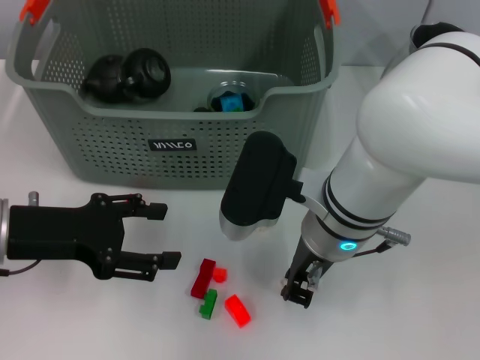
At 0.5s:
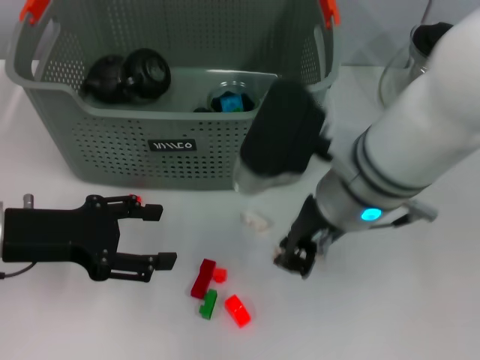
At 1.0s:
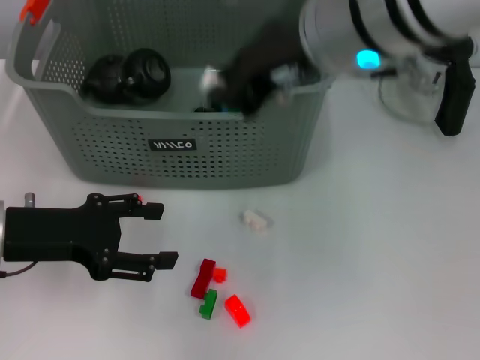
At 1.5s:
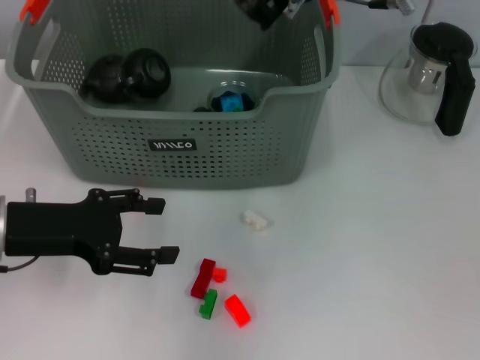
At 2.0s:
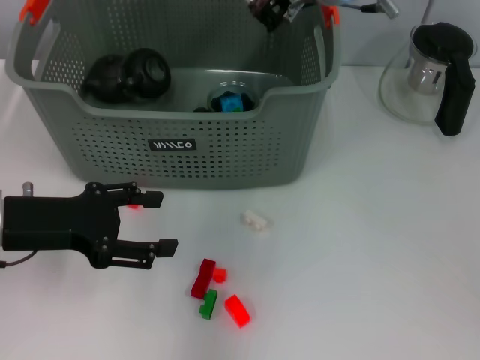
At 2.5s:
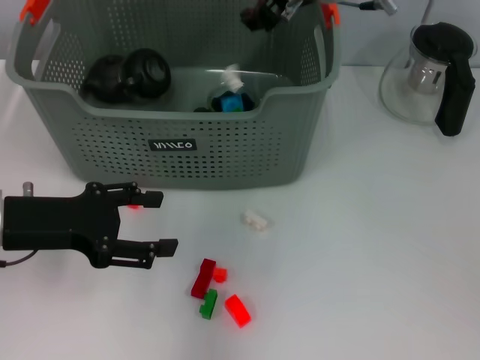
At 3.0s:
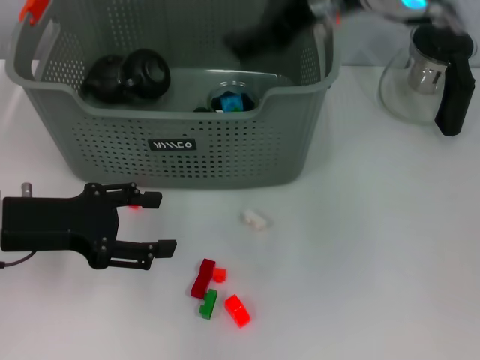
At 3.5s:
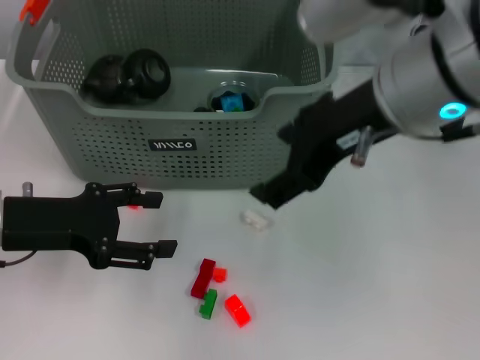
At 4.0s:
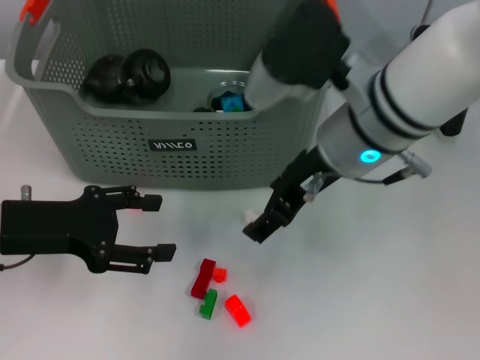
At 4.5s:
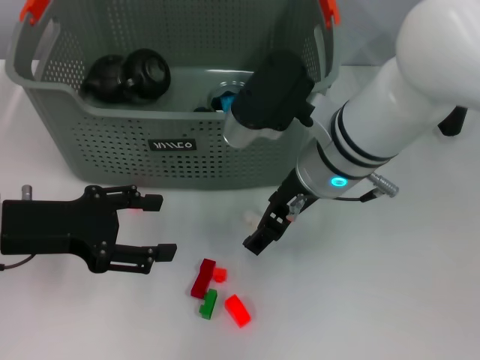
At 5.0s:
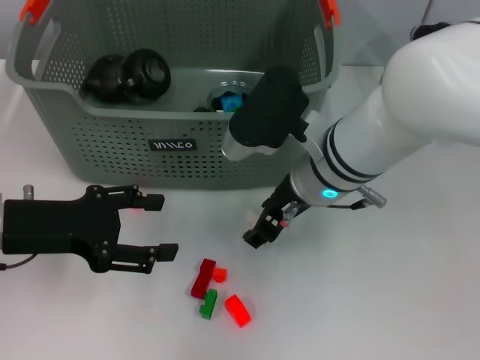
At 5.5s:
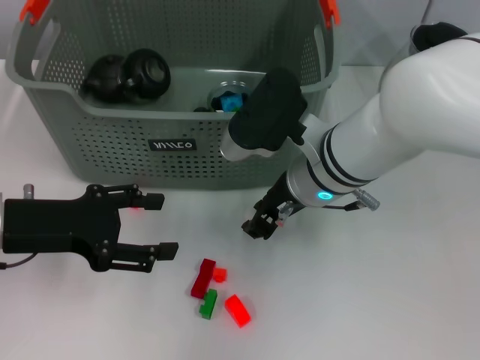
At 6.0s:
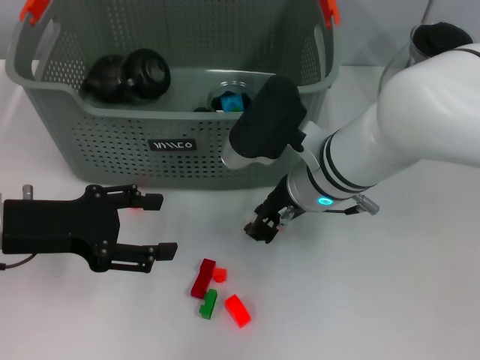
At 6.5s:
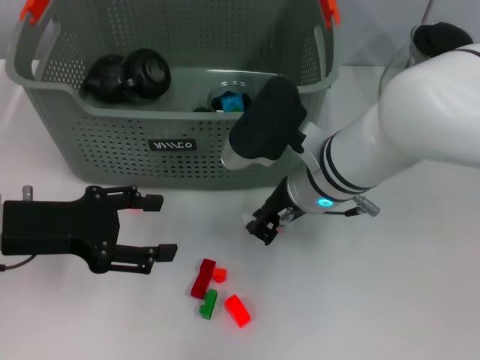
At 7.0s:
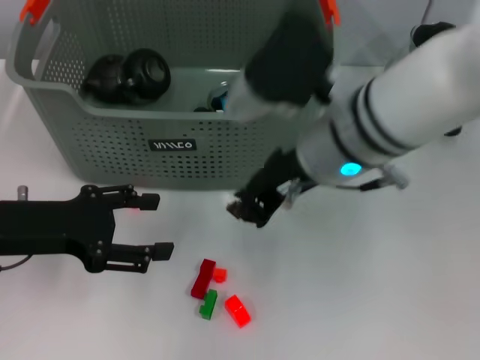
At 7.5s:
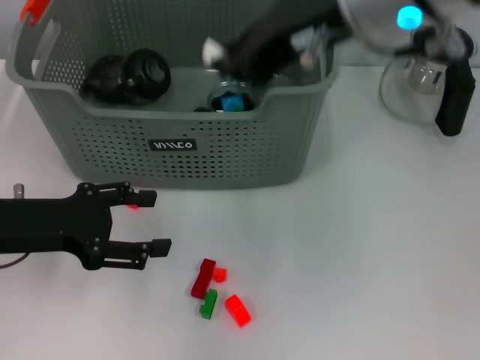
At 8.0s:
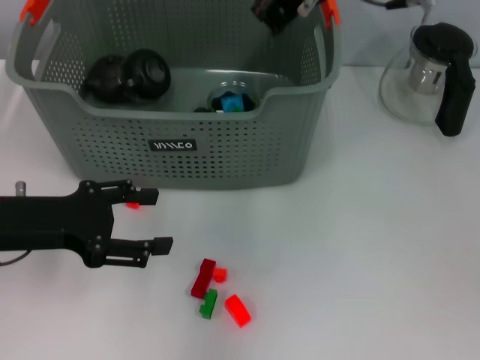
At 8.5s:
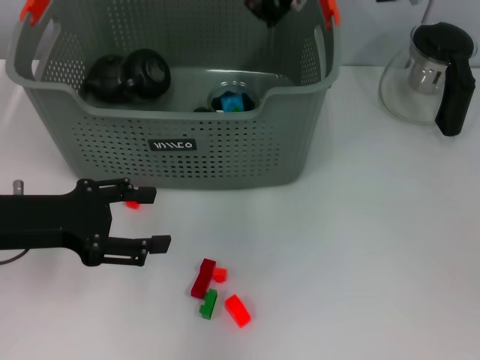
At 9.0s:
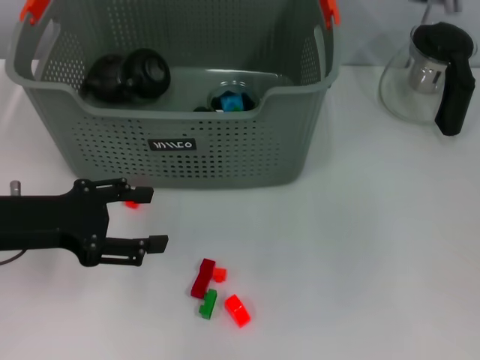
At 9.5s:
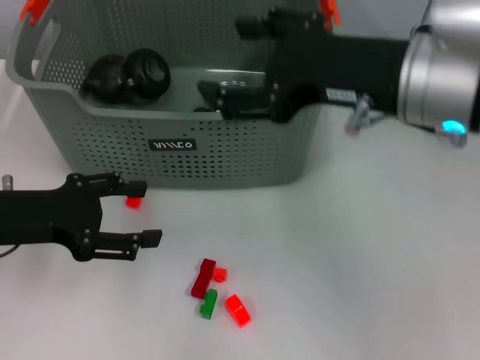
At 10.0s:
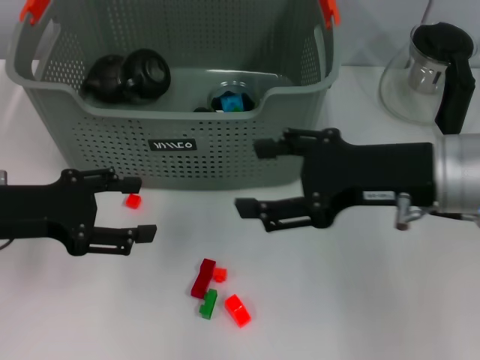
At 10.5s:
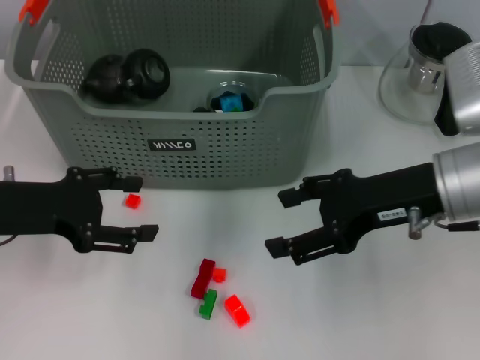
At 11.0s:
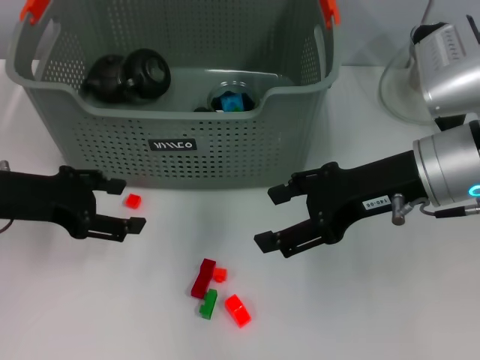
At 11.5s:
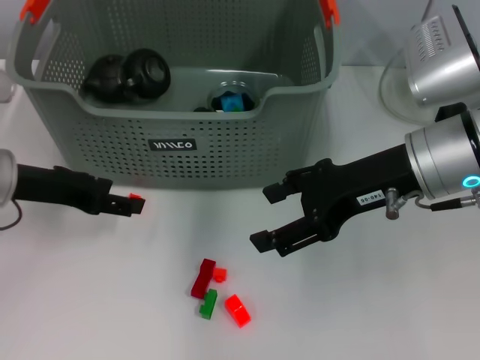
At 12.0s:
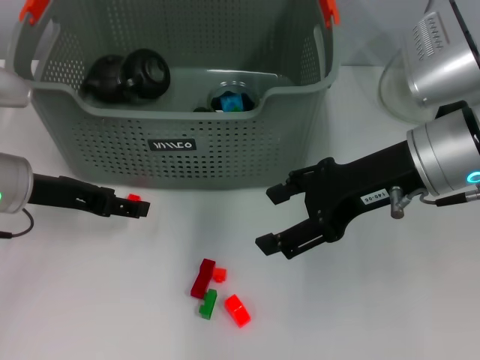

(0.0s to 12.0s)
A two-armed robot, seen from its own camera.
Task of the whole recording: pick up the teacup on the table and place it into the storage bin, pick up the block on the table and place it into the storage bin.
Step, 0.5s - 2.0s: Place the white block in the storage box with right gripper.
Step, 2.5s - 6.0s: Grasp the white block with right gripper.
Step, 6.5s - 7.5s: Place the white block in the storage box with right gripper.
0.0s - 2.0s: The right gripper moves forward and upward, roughly 20 cm.
2.0s - 4.0s: The right gripper is displaced backward and downward by approximately 10 cm, and opens.
4.0s - 6.0s: The right gripper goes some 10 cm downward, and closes up.
6.0s - 8.0s: The right gripper heads upward, covering about 20 cm.
8.0s - 10.0s: The right gripper is displaced backward, downward and to the right by approximately 20 cm, and opens.
10.0s - 12.0s: The left gripper is displaced forward by approximately 5 cm.

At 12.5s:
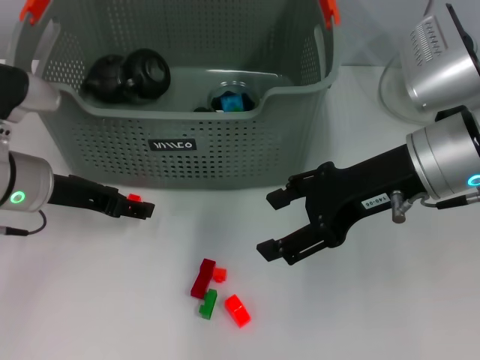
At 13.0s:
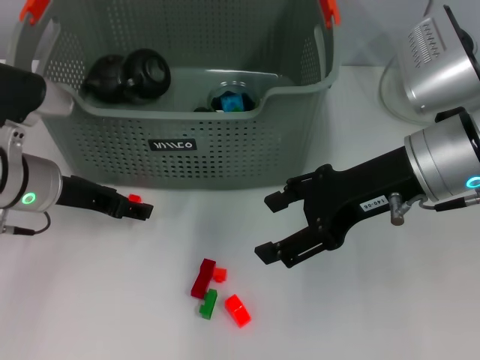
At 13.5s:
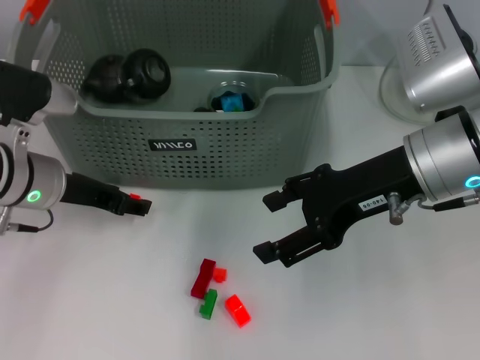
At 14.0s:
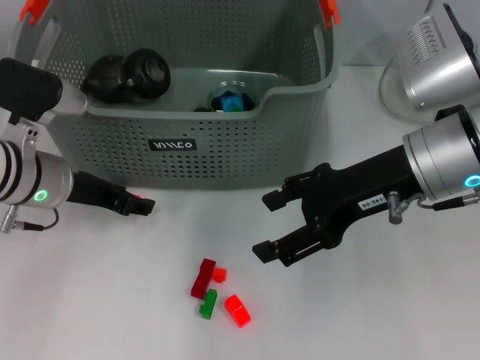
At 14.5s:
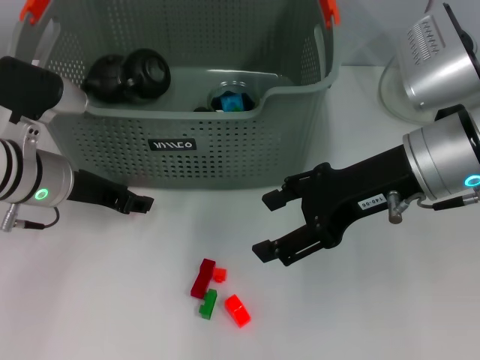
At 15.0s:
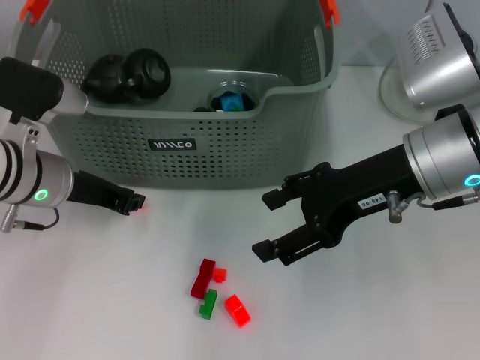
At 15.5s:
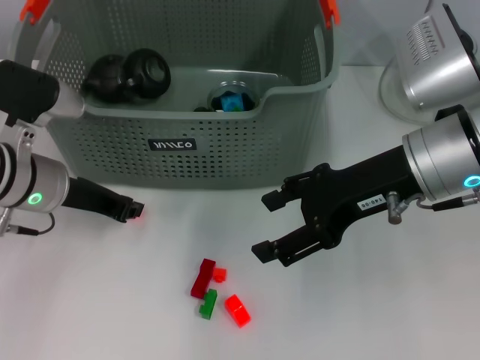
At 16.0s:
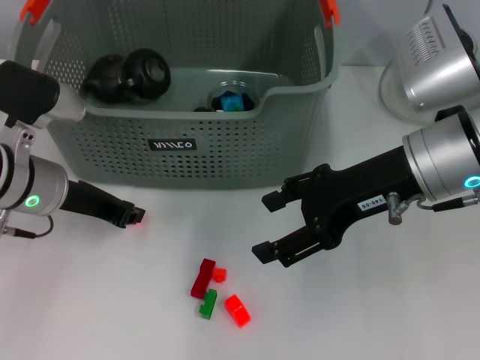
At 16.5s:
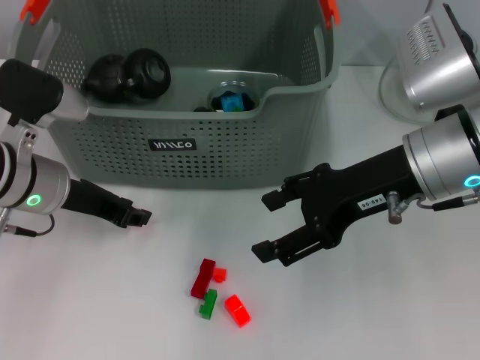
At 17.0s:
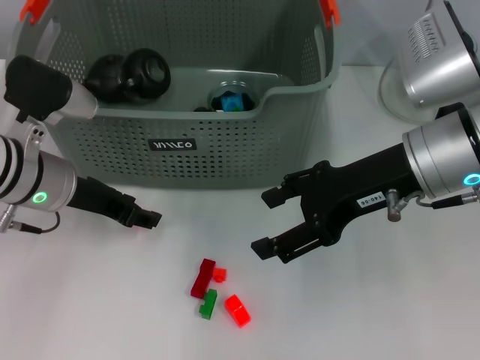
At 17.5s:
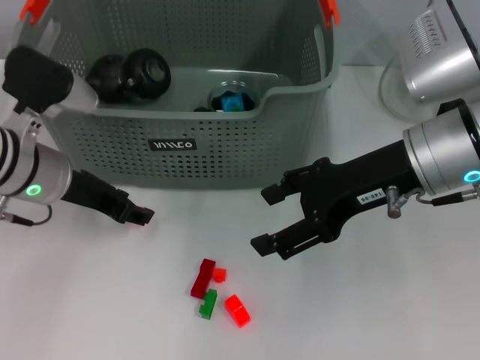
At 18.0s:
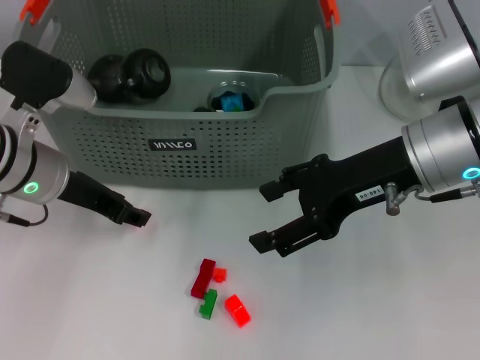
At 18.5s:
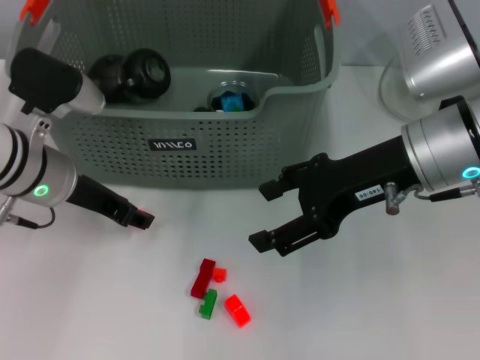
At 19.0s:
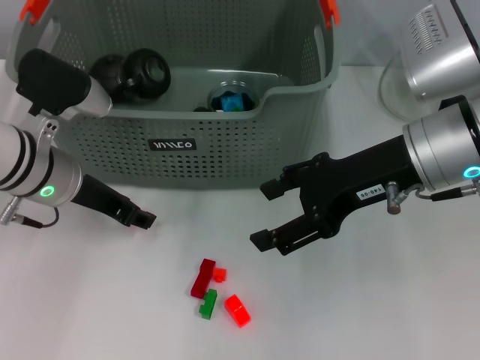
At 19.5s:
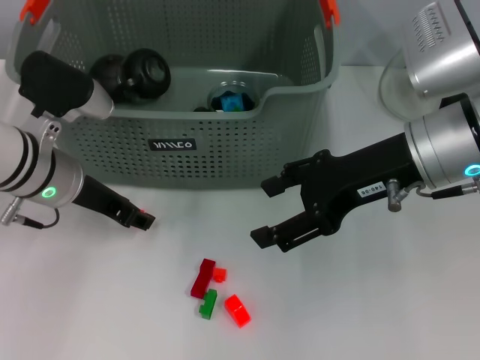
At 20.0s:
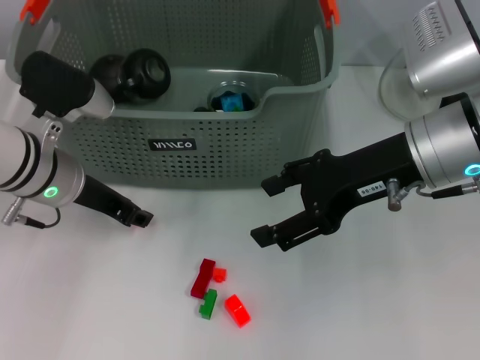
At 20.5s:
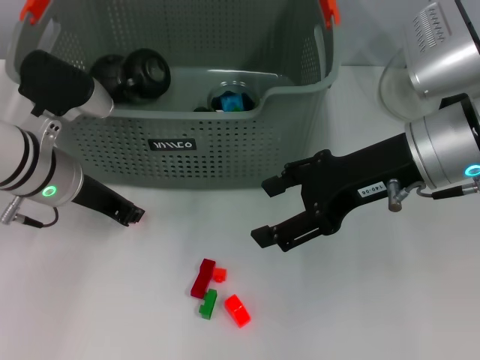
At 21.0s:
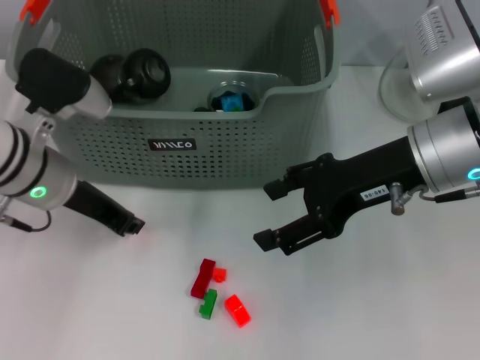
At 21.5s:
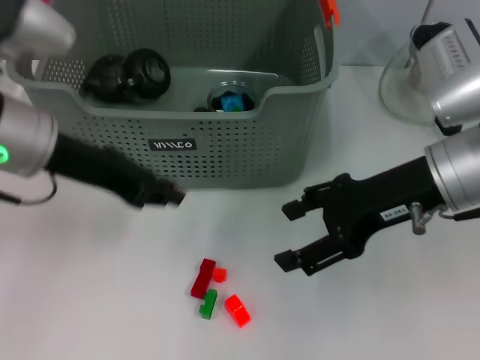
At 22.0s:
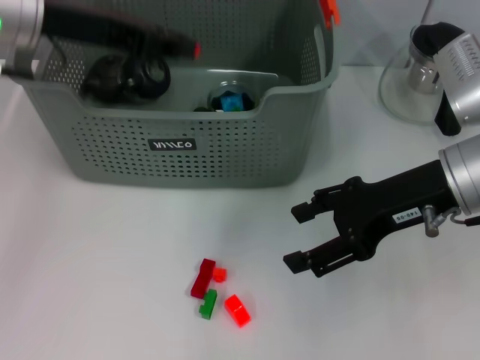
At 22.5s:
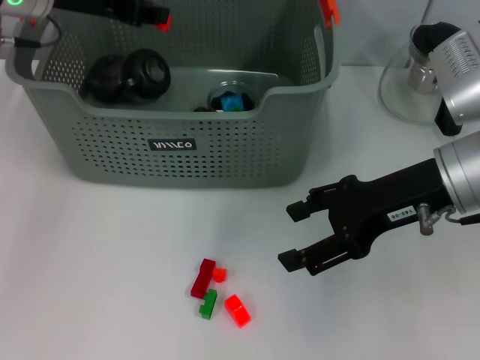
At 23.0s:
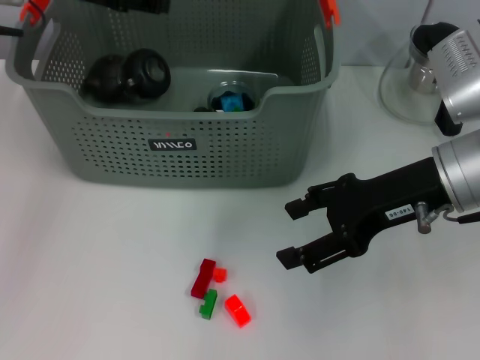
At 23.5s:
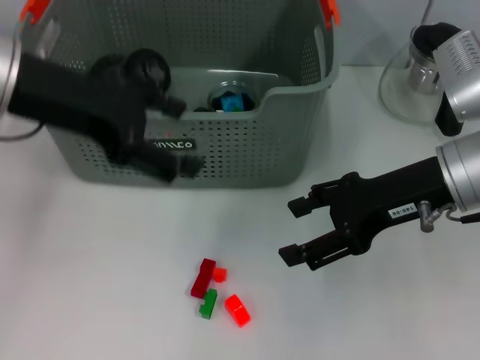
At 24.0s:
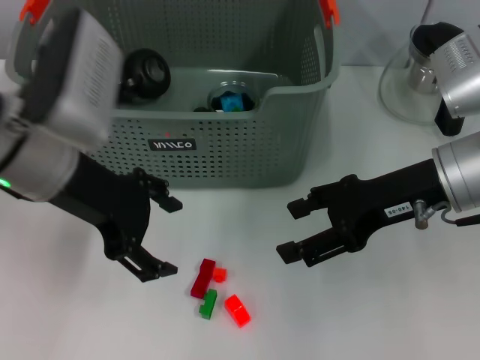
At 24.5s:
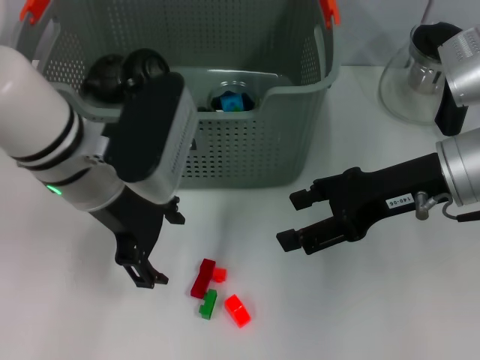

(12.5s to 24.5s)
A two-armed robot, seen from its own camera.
Task of the whole recording: pick up the teacup on the table and place it into the storage bin, pick up the block on the table and place it into the storage bin.
Step, 12.5s - 20.0s: Grasp the orange block with left gripper.
Step, 21.0s - 22.5s: Place the orange block in the storage box with left gripper.
12.5s - 14.5s: There are only small adjustments of the grippers.
14.5s - 16.5s: The left gripper closes.
16.5s - 18.5s: The left gripper opens.
18.5s - 20.5s: The left gripper closes.
20.5s - 22.5s: The left gripper shifts roughly 15 cm upward and forward.
22.5s - 24.5s: The left gripper is displaced backward, to the right and downward by about 15 cm, and opens up.

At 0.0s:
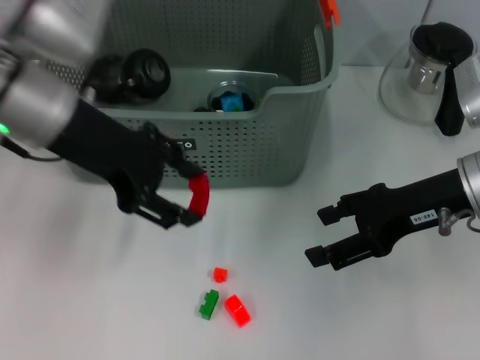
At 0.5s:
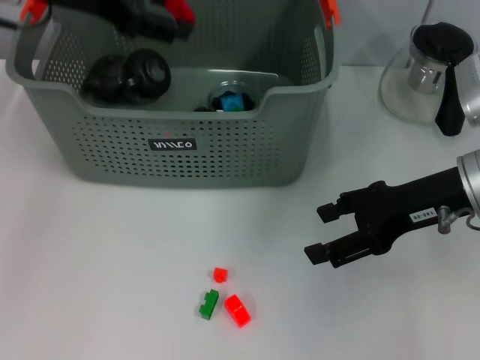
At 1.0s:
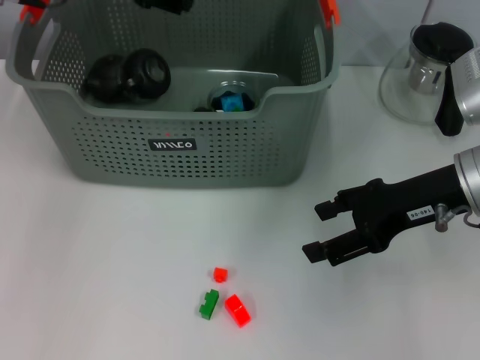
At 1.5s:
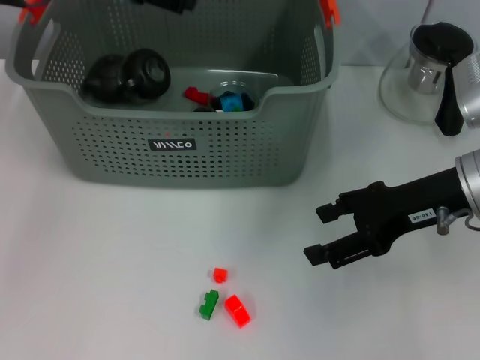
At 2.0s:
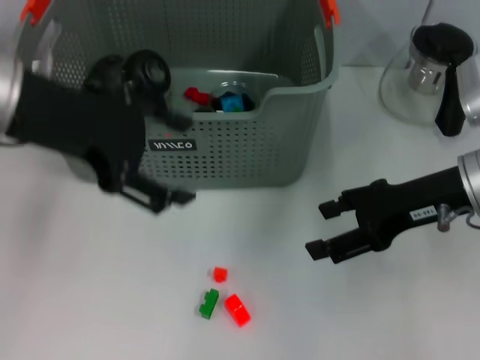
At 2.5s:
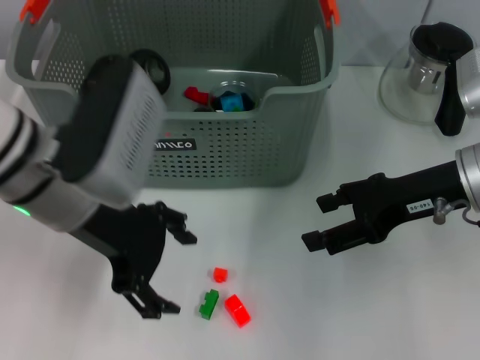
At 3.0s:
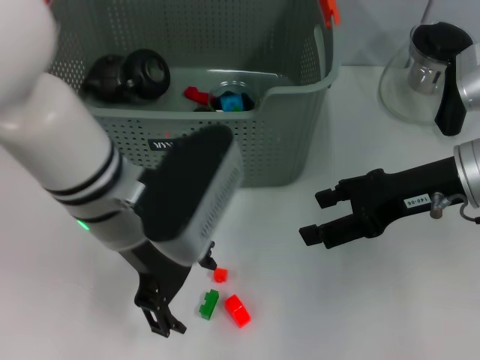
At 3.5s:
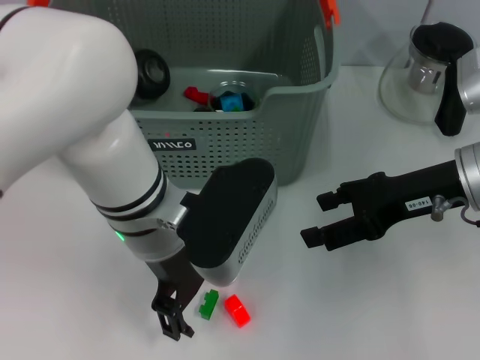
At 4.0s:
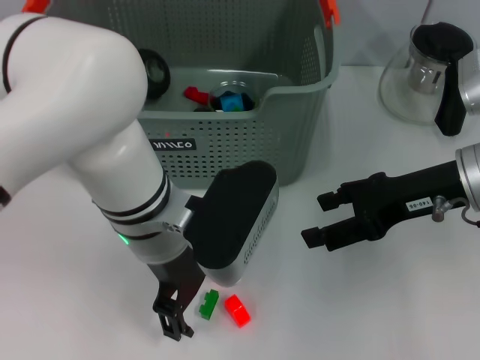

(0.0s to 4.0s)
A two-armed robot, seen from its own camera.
Task of the whole recording: pick up the teacup on the table and place it into the storage bin, pick up the block on the table and place it into the storage bin.
Step, 0.0s - 1.0s: Place the red block in the storage box with left gripper.
0.0s - 2.0s: The left gripper goes forward and returns, some 10 cm each way.
2.0s - 4.0s: The left gripper is displaced to the right and downward by some 15 cm.
